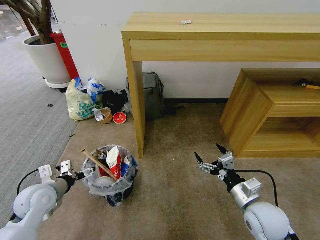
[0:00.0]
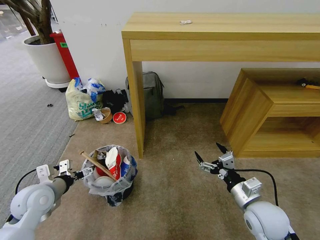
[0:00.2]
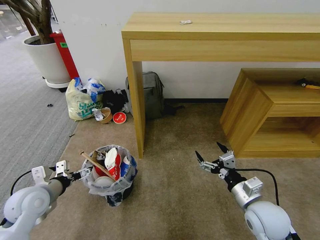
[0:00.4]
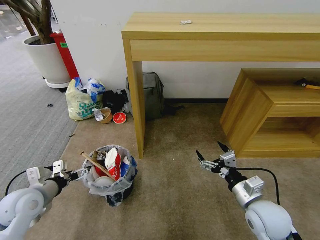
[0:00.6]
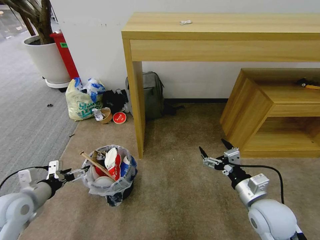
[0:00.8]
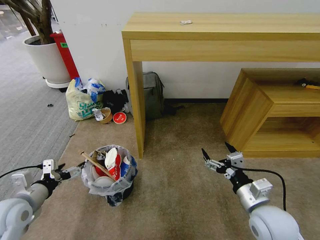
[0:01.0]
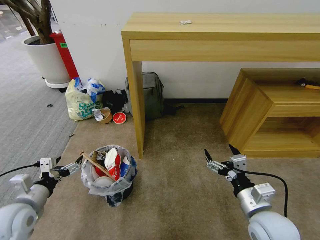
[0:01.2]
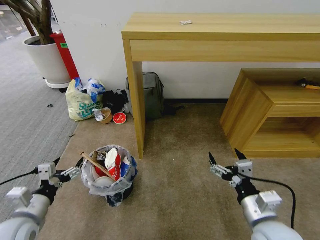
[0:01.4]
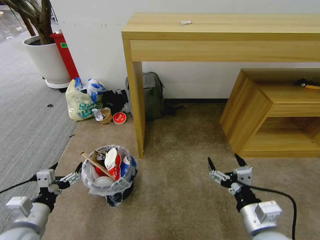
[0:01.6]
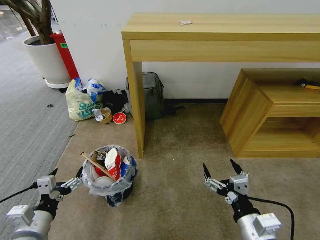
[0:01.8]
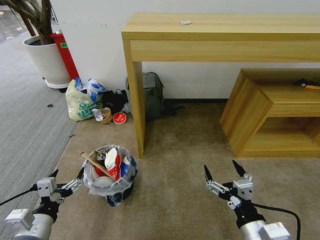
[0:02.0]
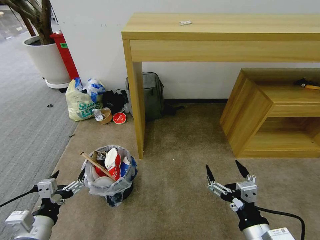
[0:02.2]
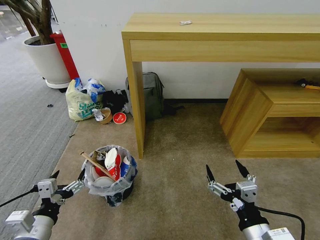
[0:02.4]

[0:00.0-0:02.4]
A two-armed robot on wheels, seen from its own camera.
Task of the whole recording: Pick up the trash bin and place the garbage on the floor into it.
0:00.0 to 0:01.2: The left gripper moves backward, about 5 cm. The right gripper changes place by roughly 5 cm.
0:01.2 to 0:02.4: The right gripper moves backward, approximately 10 cm. The left gripper heads backward and to the right, covering some 10 cm.

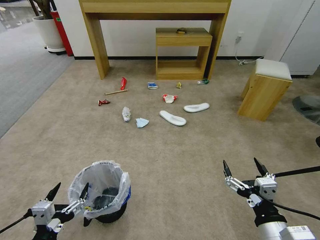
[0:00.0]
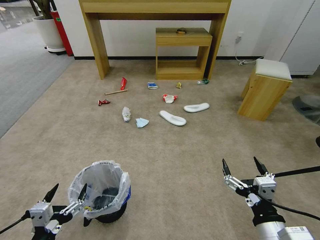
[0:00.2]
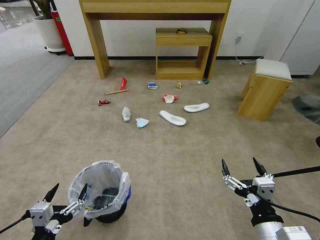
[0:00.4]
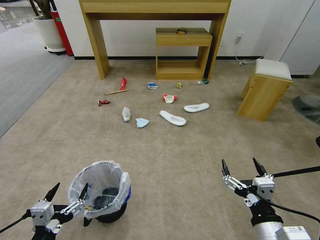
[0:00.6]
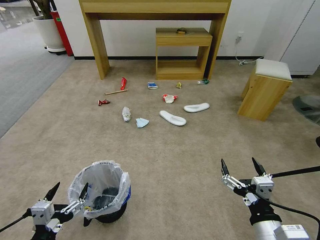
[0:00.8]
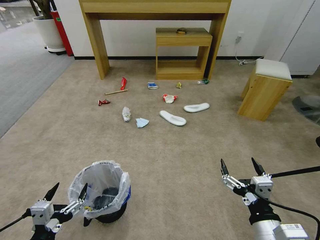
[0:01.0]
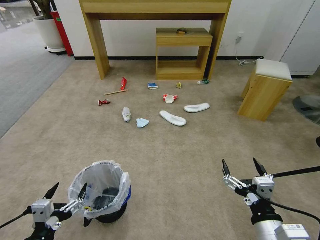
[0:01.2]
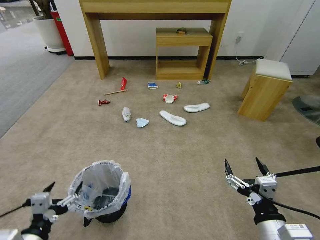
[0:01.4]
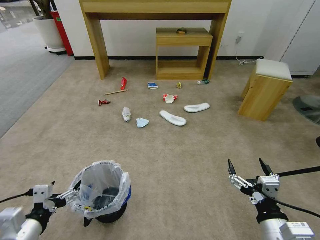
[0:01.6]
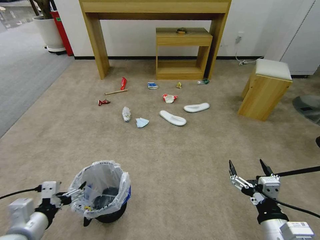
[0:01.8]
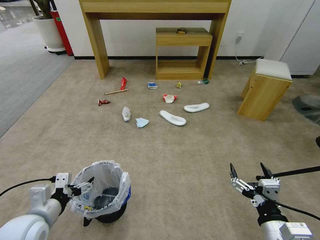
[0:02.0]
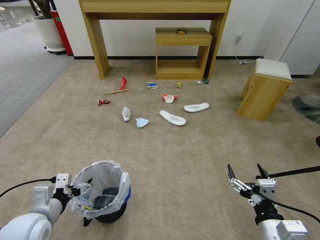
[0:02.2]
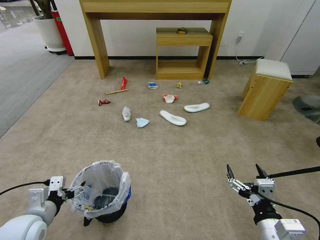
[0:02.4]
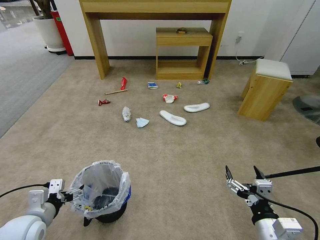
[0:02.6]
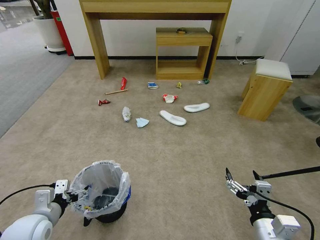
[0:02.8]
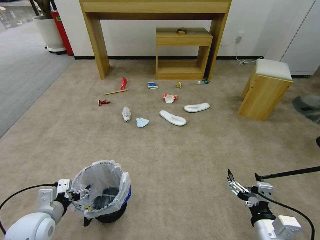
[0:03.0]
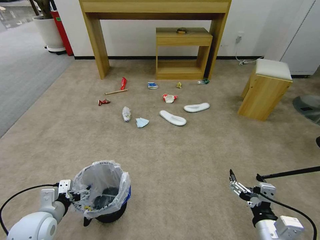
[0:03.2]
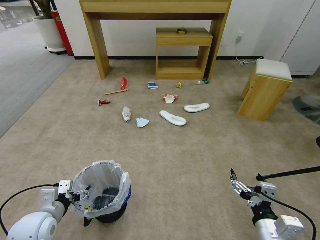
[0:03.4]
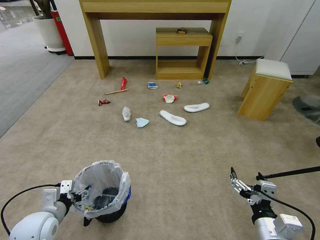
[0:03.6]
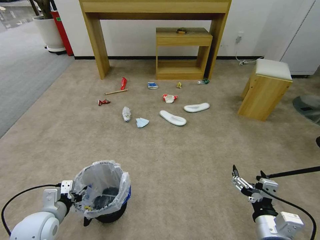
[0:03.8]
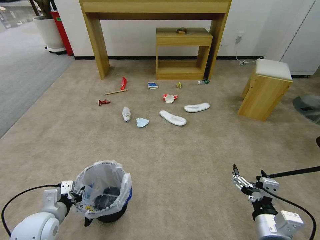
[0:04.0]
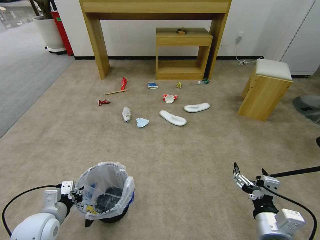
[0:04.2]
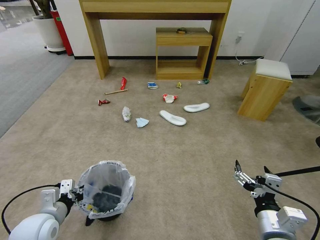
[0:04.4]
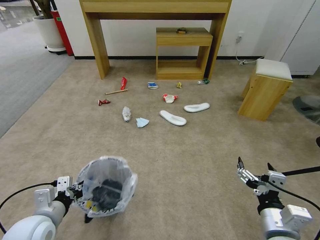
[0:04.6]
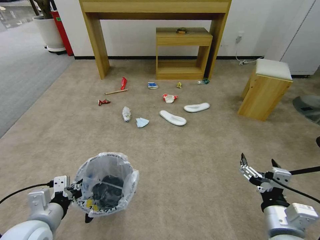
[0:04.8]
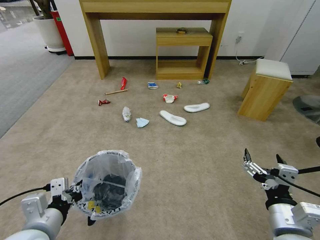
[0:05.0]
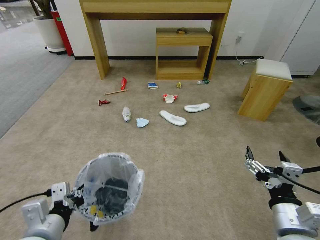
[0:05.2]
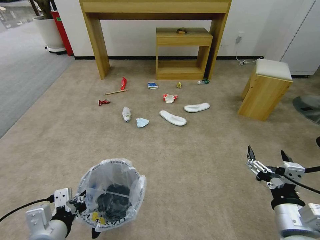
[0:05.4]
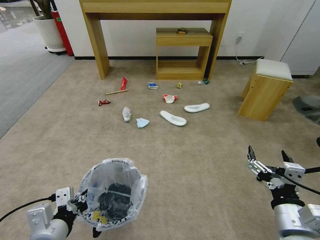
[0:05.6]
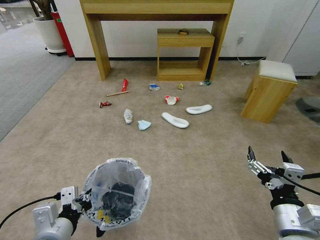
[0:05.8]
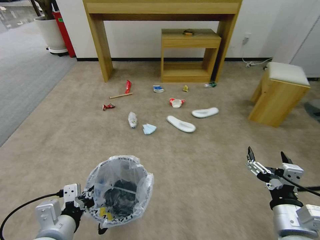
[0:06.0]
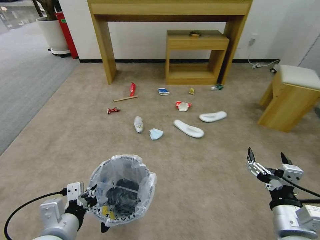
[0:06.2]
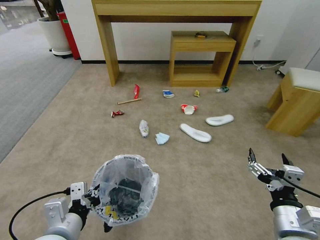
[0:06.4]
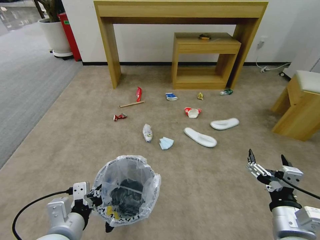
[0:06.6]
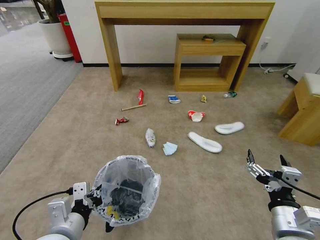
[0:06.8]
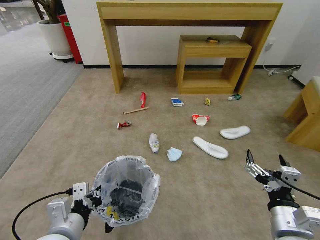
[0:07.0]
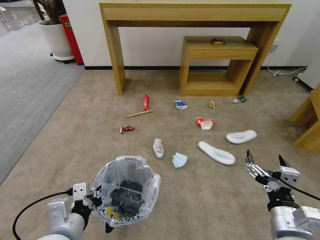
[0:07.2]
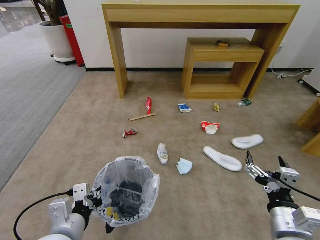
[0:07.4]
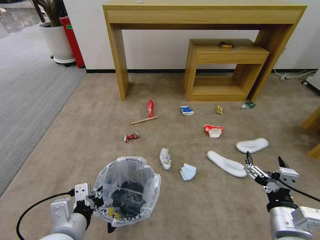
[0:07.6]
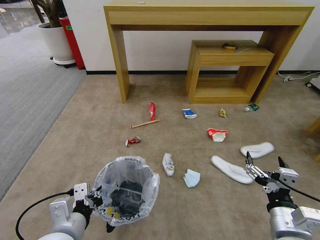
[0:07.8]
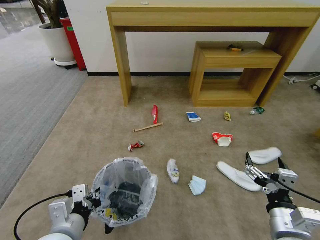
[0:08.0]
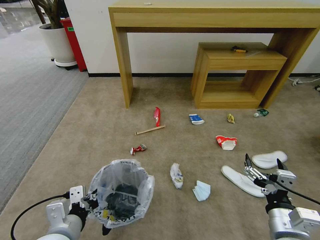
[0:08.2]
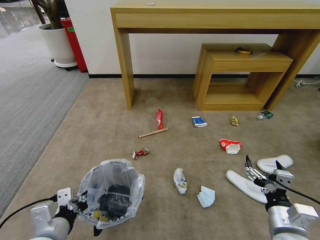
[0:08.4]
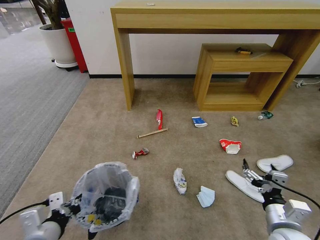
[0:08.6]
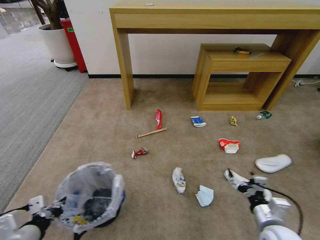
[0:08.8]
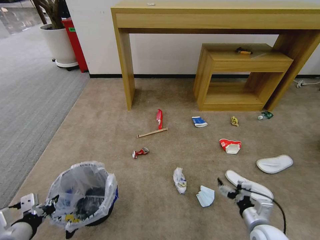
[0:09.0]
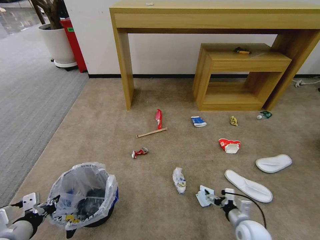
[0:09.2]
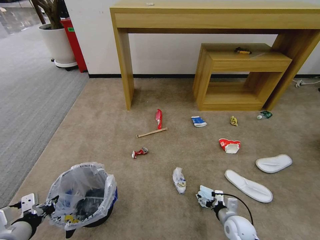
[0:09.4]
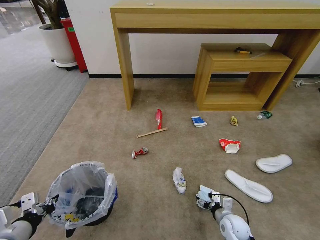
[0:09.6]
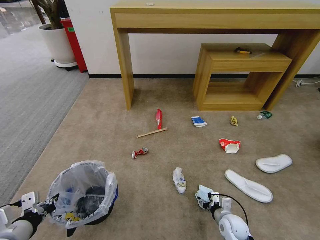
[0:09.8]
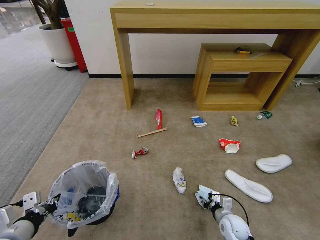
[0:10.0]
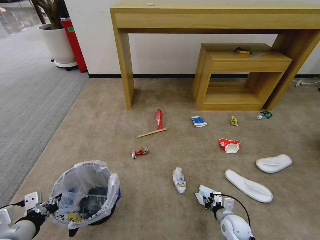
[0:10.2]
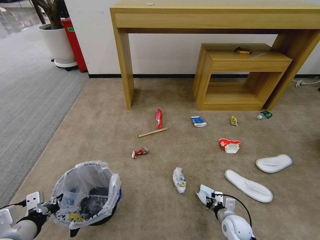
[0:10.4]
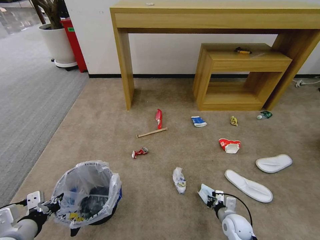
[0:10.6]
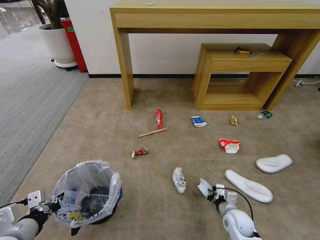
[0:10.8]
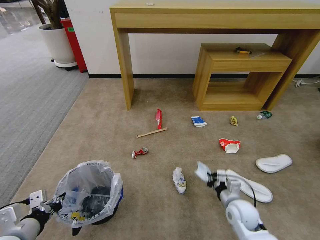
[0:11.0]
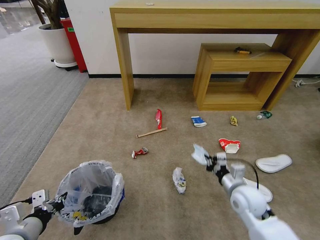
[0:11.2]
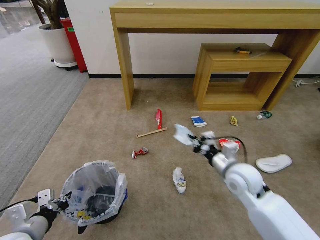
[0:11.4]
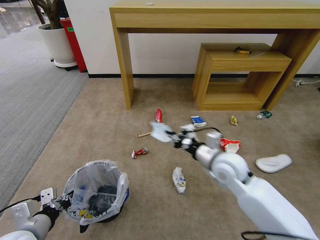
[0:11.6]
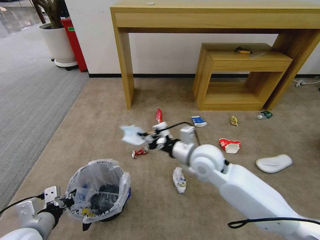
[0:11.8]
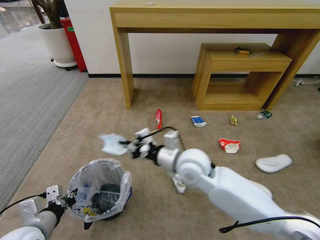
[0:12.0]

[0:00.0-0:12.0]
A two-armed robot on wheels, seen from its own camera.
Task of the whole recording: Pick up the trash bin and place the garbage on the floor into it.
0:01.6 to 0:03.0: The left gripper shifts some 10 cm forward and downward.
0:03.0 to 0:04.4: The left gripper closes up.
0:04.4 to 0:06.0: The left gripper heads to the right, upward and backward, covering roughly 15 cm.
0:07.6 to 0:09.0: The left gripper shifts about 15 cm to the left. The right gripper goes roughly 15 cm downward.
0:09.0 to 0:10.4: The right gripper goes about 10 cm downward and forward, and closes its fingers.
0:10.4 to 0:12.0: The right gripper heads upward and to the left, covering some 35 cm.

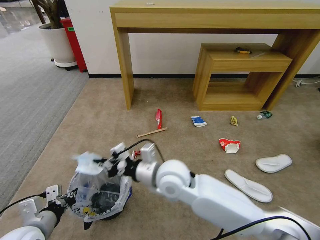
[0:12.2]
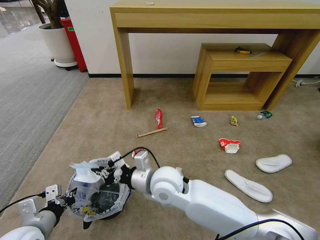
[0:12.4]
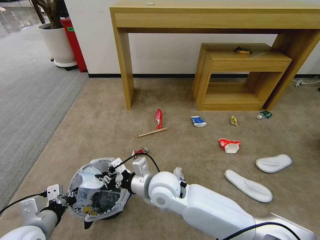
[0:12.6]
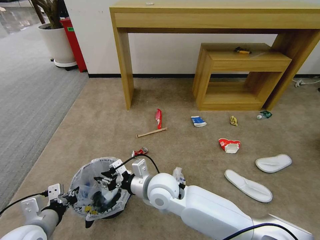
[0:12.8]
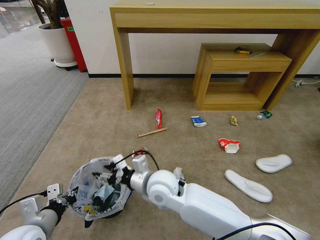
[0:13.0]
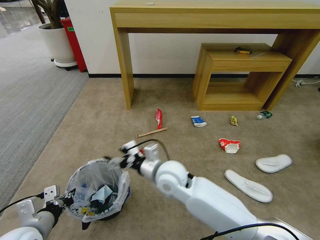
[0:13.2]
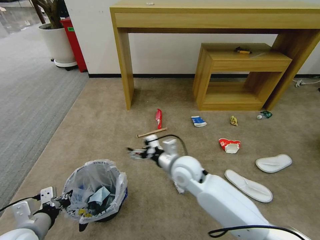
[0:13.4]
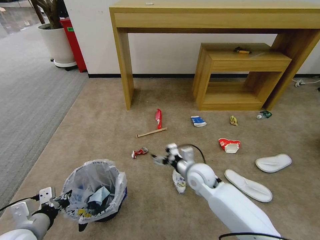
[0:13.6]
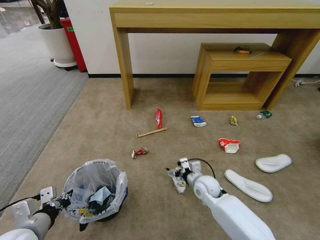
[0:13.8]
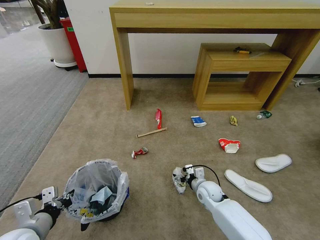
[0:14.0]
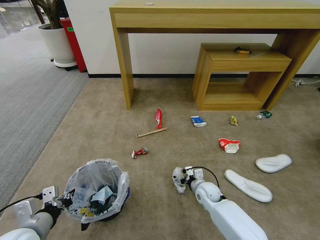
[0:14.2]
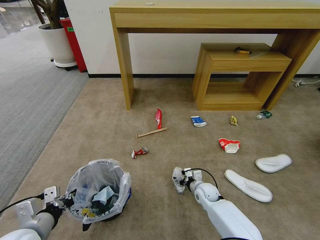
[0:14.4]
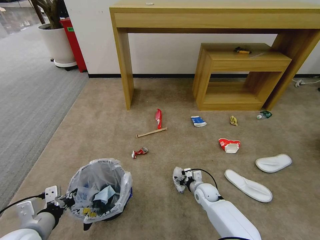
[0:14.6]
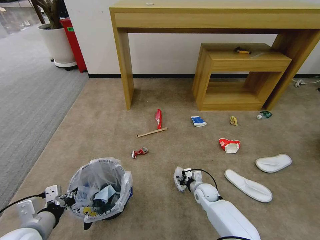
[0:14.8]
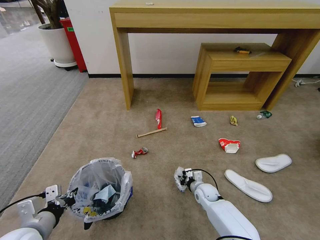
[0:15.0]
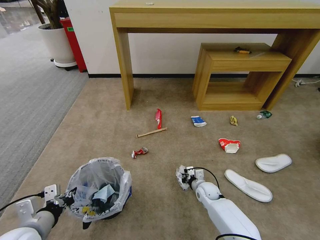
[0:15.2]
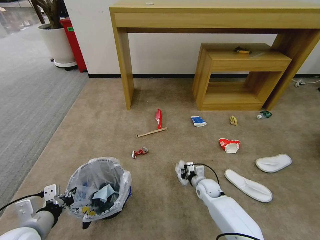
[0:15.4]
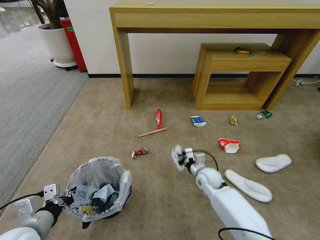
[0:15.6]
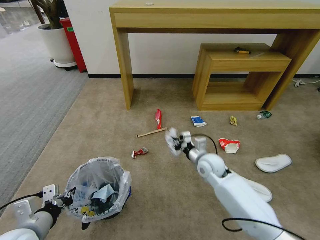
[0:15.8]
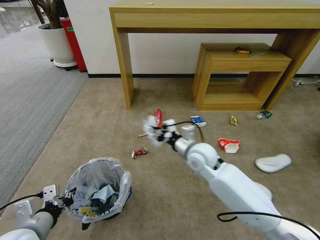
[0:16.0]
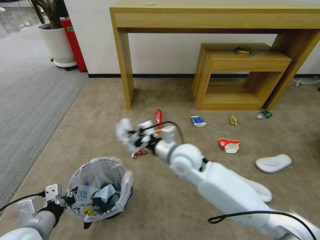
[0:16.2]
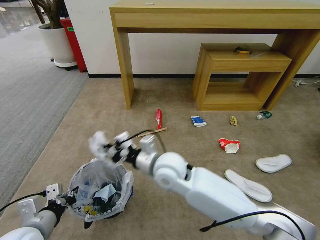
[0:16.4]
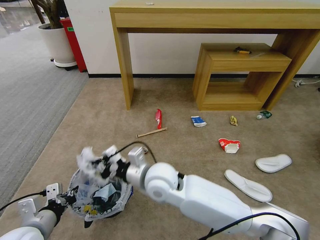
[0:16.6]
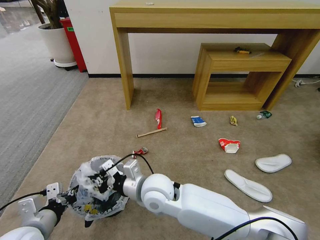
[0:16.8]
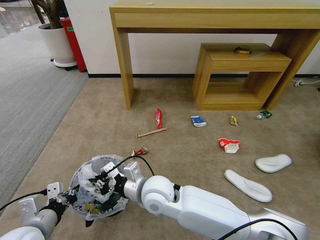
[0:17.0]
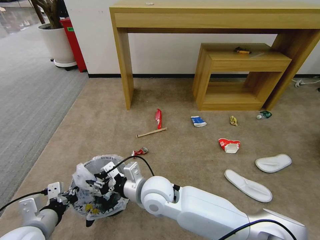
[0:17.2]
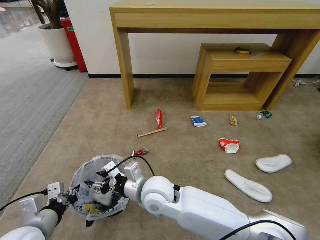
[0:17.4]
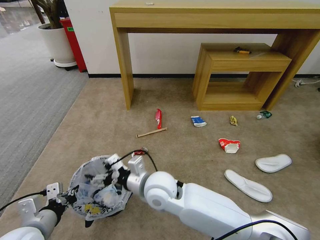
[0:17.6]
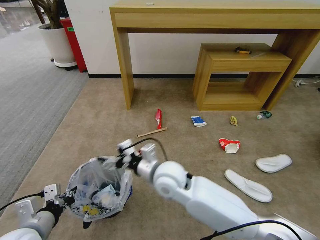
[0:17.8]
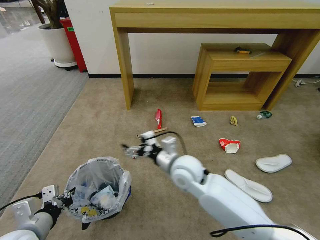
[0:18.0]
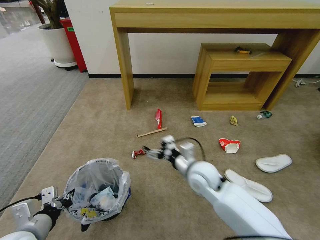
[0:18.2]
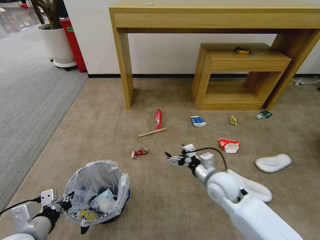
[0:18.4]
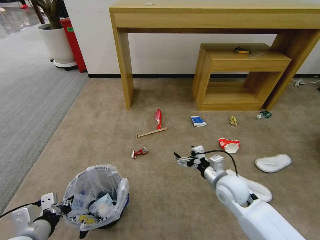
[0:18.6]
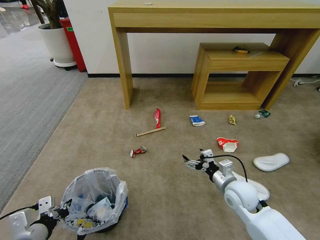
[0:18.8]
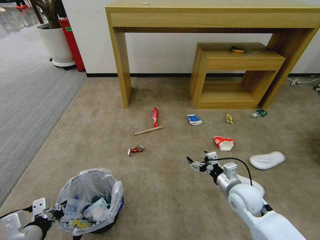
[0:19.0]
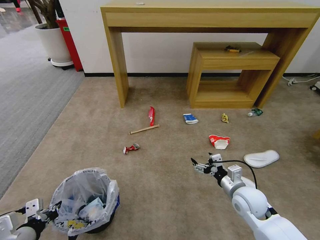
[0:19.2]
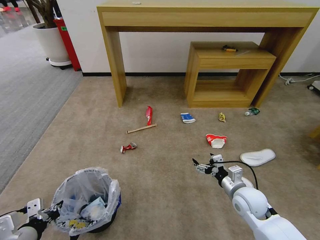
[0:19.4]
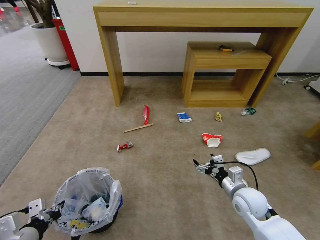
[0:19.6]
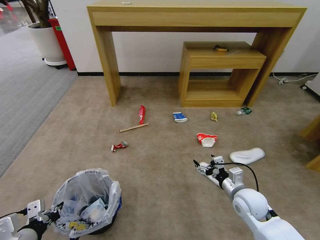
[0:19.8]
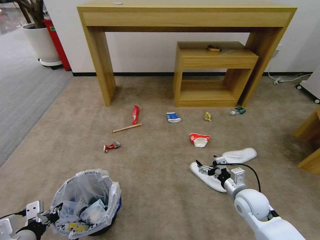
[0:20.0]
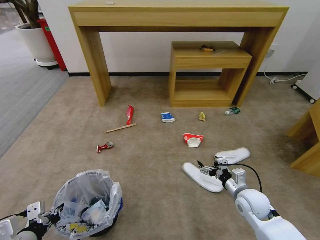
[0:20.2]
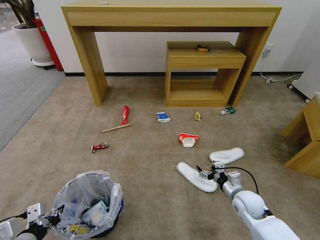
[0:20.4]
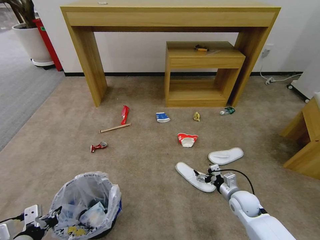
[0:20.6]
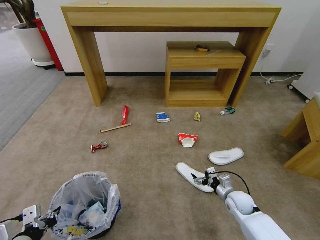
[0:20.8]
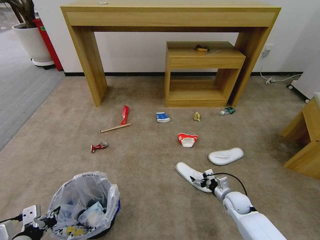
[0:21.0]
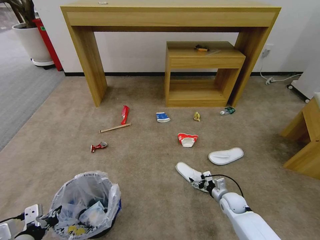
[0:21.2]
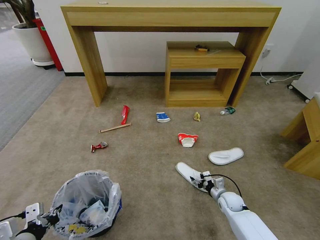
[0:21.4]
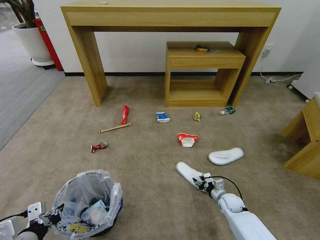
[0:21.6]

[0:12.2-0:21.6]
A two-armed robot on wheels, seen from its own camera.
Task of the whole recording: Pick up the trash bin and place the garbage on the floor into it.
0:12.2 to 0:13.8: The right gripper is displaced downward and to the right by roughly 25 cm, and opens its fingers.
0:13.8 to 0:15.4: The right gripper heads downward, covering approximately 10 cm, and closes up.
0:15.4 to 0:17.0: The right gripper shifts roughly 35 cm upward, to the left and backward.
0:17.0 to 0:18.4: The right gripper is displaced to the right by some 20 cm, and opens.
0:18.4 to 0:20.0: The right gripper shifts roughly 10 cm to the right.
0:20.0 to 0:21.6: The right gripper is displaced downward by some 15 cm, and closes.
